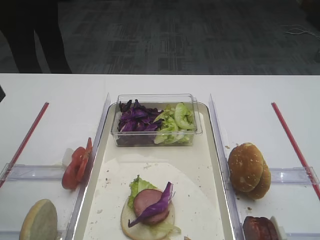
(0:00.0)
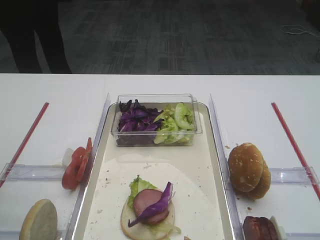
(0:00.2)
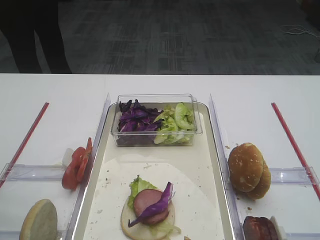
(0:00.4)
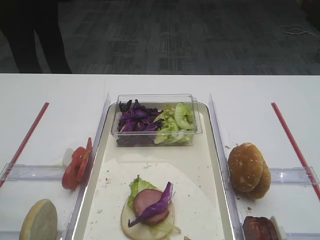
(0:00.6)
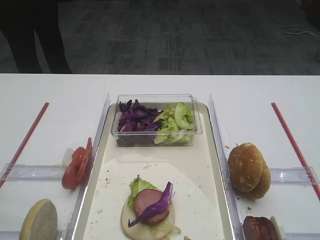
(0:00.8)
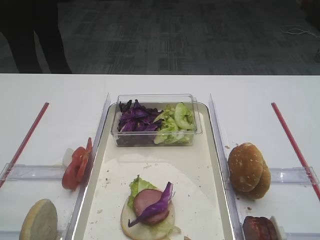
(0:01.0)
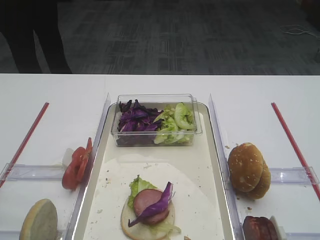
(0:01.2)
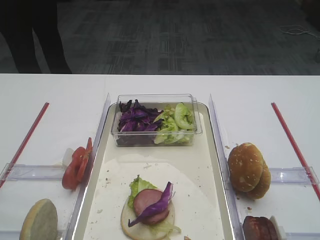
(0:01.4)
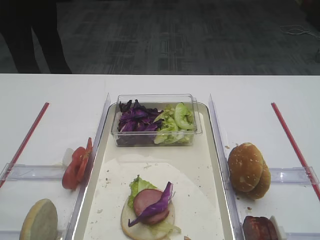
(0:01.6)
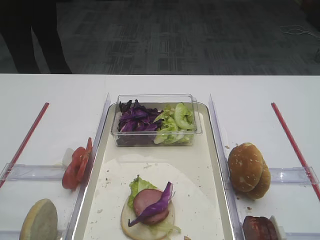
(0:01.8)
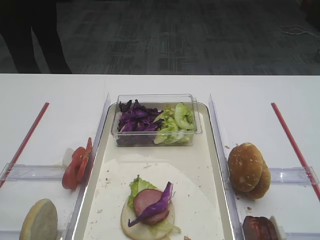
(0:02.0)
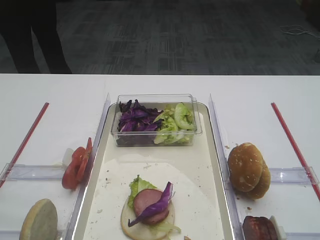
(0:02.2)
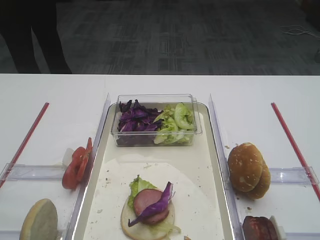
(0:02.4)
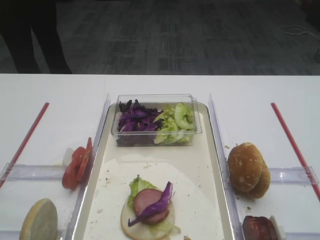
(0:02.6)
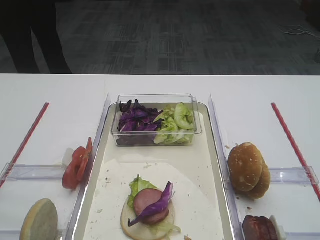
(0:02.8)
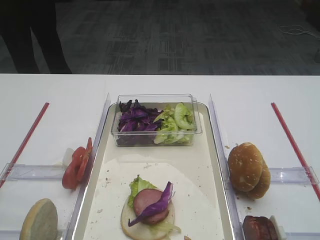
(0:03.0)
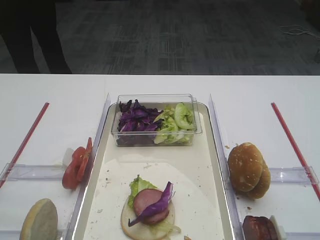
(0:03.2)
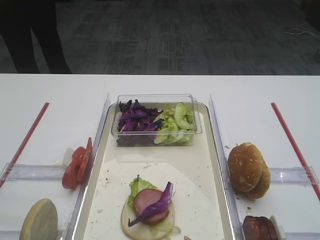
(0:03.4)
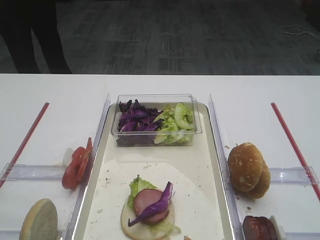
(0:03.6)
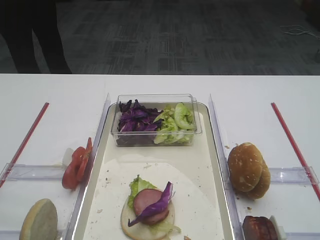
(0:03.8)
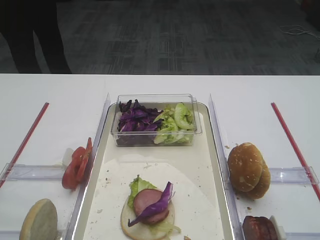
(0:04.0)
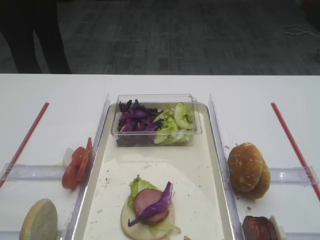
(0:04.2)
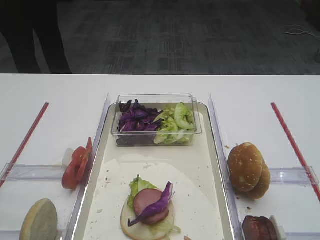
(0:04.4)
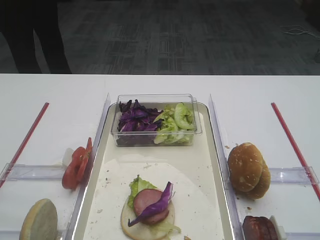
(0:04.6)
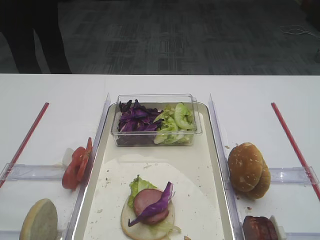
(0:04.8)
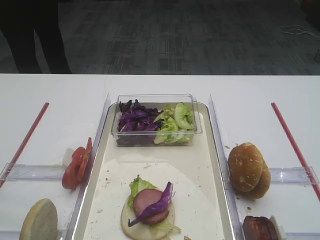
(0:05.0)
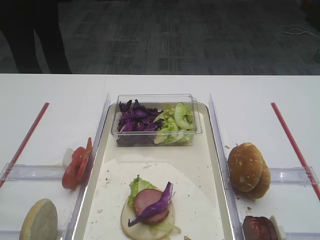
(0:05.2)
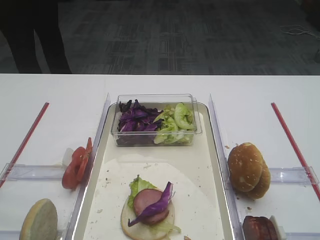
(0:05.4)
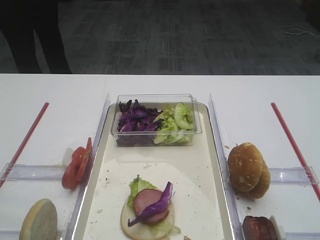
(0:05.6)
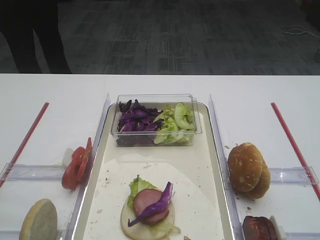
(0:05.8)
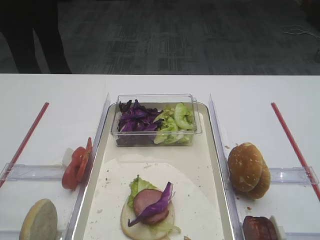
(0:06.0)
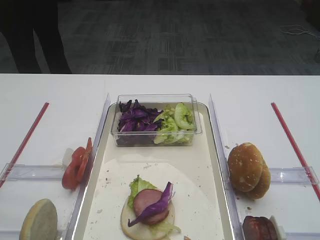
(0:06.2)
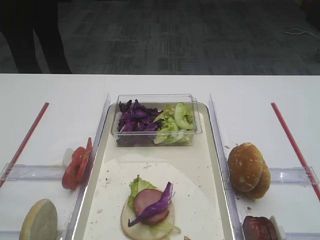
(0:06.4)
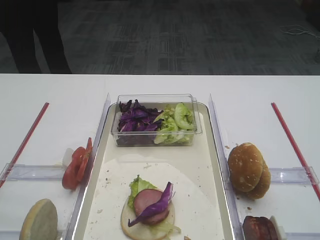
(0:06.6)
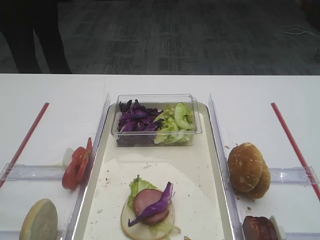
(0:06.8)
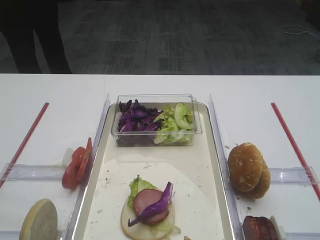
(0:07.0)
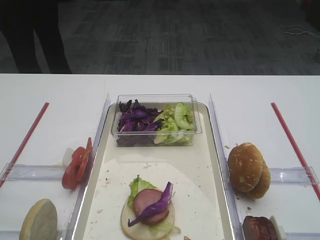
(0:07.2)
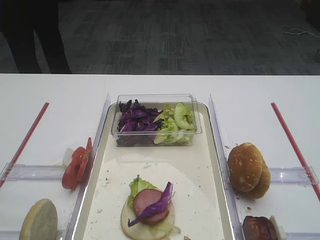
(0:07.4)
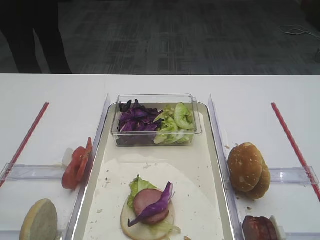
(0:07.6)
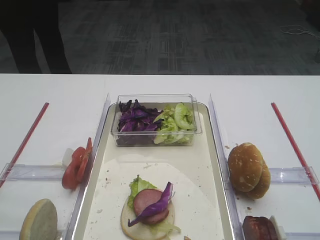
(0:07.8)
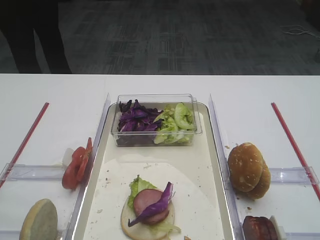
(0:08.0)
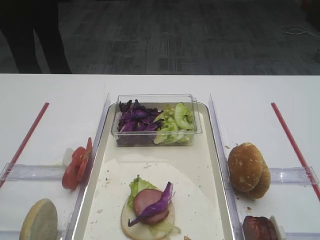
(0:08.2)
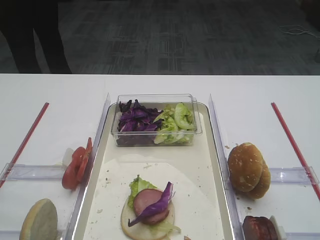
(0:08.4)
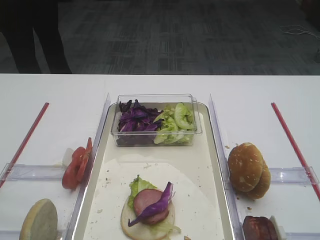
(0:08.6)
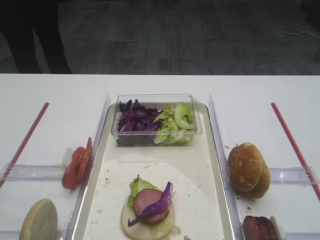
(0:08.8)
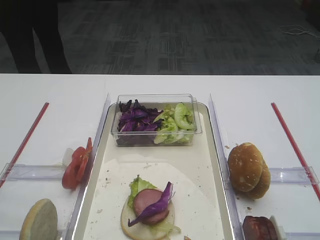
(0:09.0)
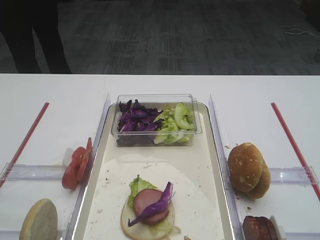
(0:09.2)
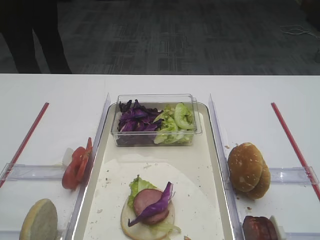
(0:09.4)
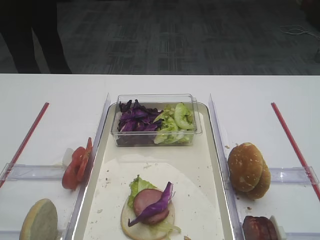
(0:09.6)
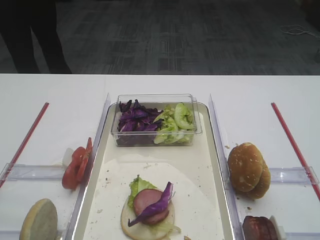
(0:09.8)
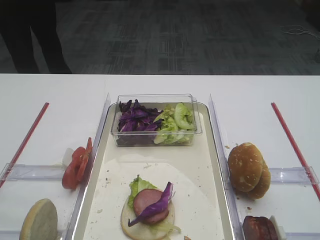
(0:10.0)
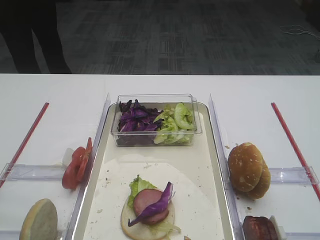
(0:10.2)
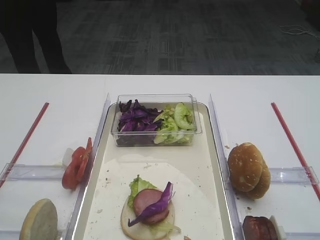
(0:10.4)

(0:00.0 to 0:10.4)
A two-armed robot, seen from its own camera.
0:03.0 - 0:10.4: Both grippers stay put.

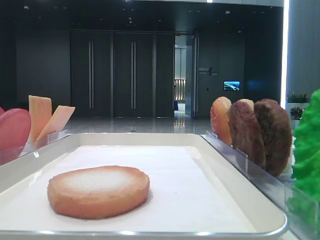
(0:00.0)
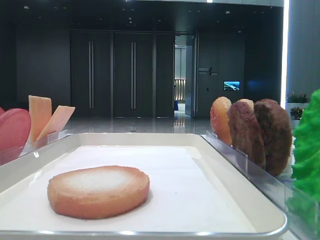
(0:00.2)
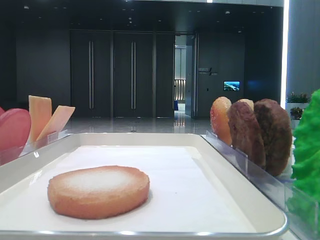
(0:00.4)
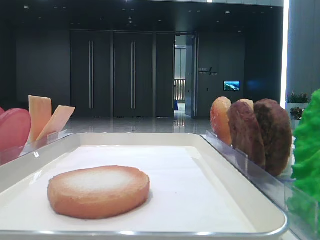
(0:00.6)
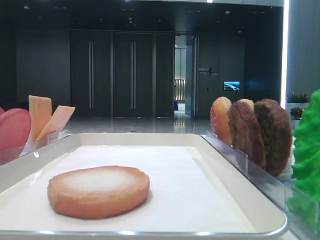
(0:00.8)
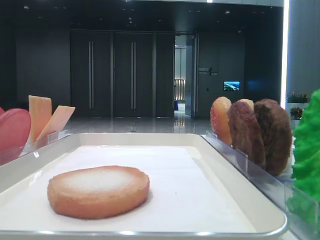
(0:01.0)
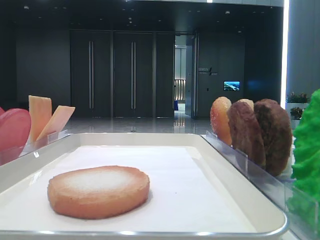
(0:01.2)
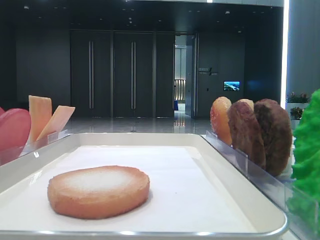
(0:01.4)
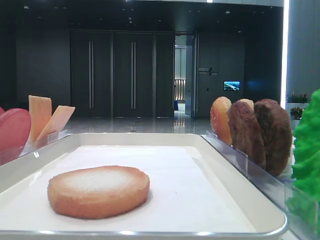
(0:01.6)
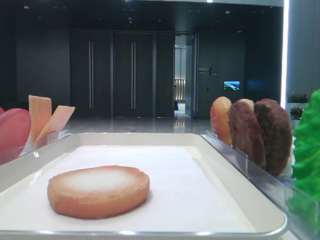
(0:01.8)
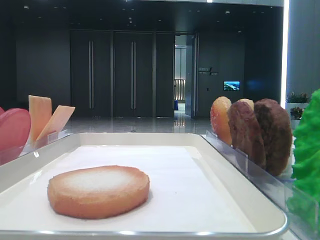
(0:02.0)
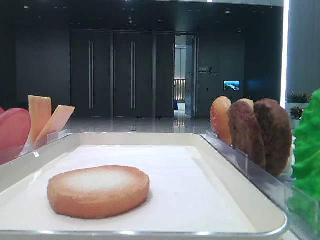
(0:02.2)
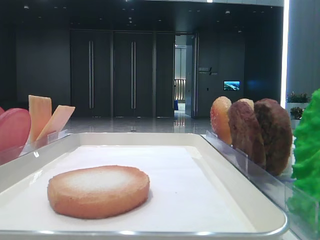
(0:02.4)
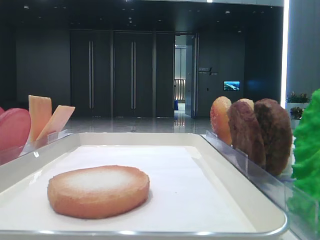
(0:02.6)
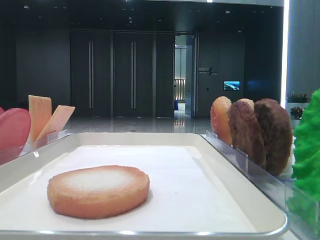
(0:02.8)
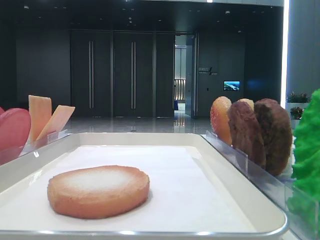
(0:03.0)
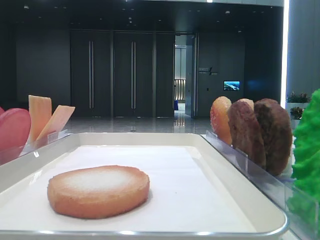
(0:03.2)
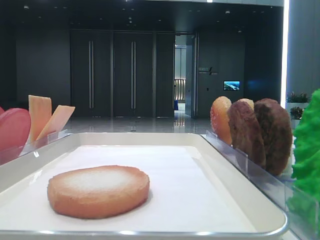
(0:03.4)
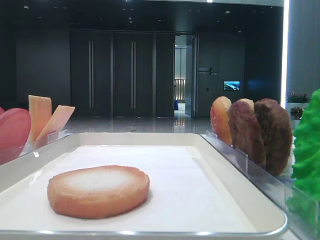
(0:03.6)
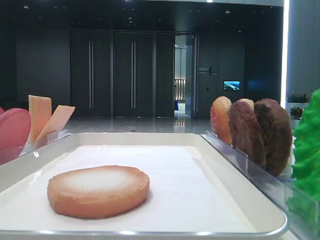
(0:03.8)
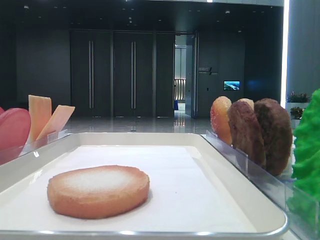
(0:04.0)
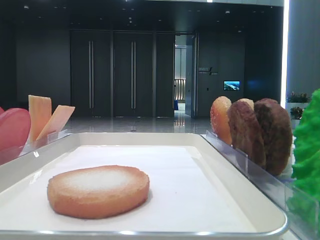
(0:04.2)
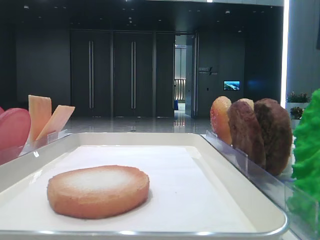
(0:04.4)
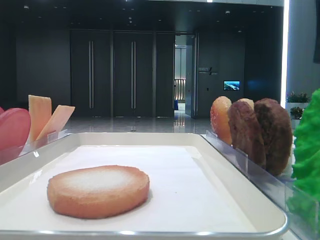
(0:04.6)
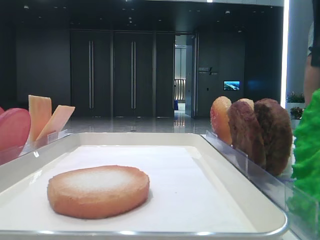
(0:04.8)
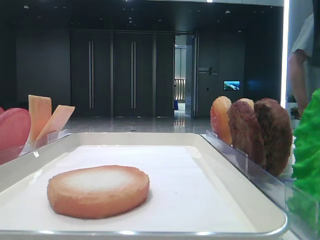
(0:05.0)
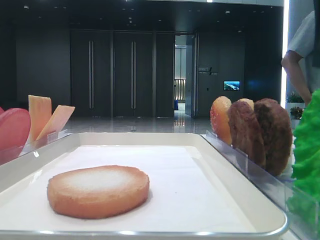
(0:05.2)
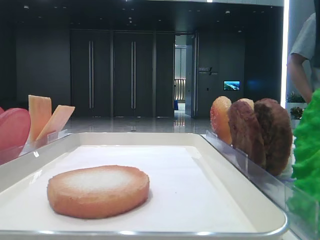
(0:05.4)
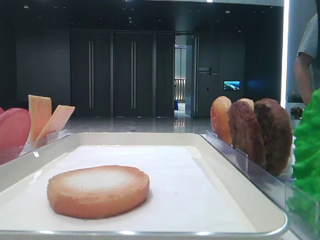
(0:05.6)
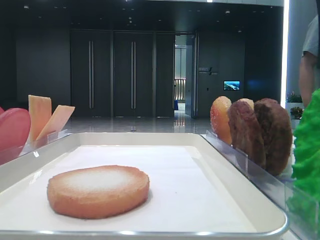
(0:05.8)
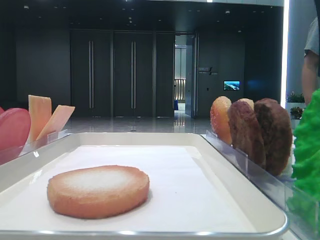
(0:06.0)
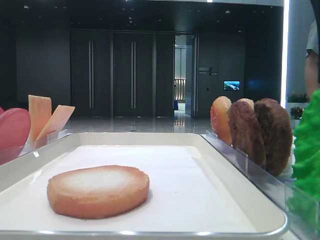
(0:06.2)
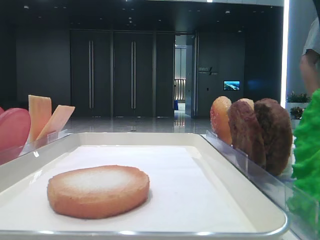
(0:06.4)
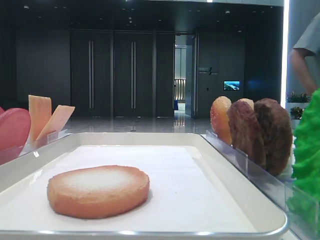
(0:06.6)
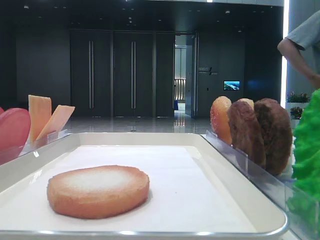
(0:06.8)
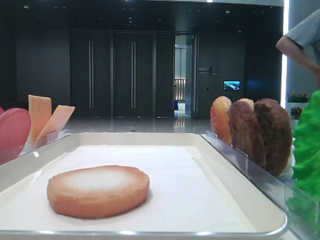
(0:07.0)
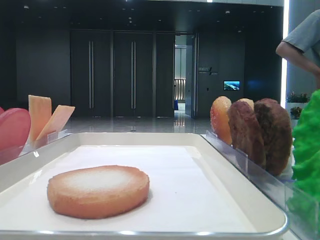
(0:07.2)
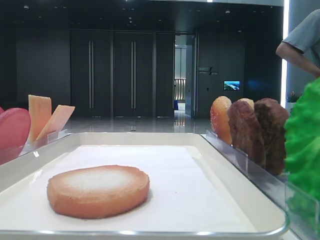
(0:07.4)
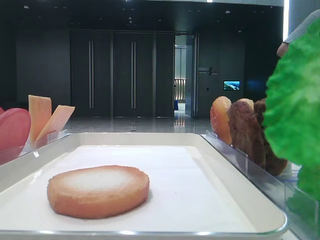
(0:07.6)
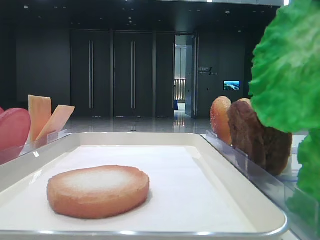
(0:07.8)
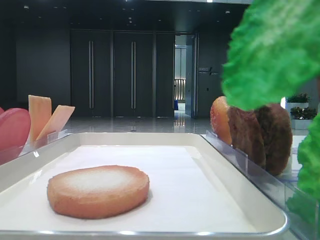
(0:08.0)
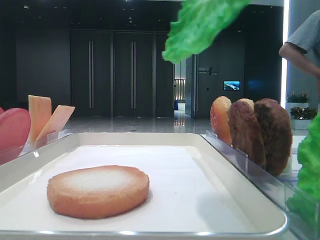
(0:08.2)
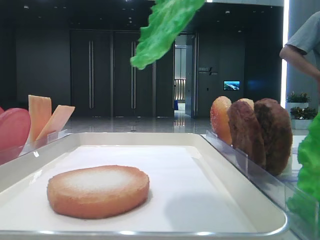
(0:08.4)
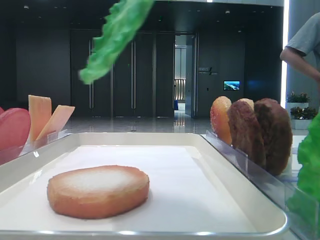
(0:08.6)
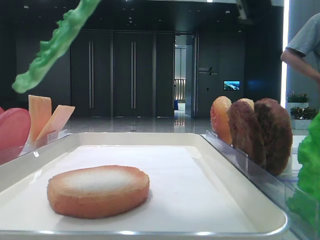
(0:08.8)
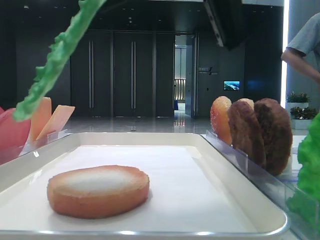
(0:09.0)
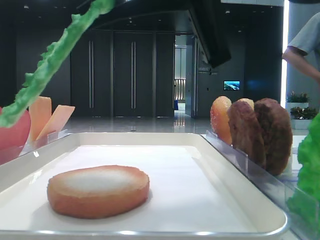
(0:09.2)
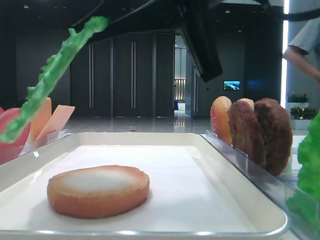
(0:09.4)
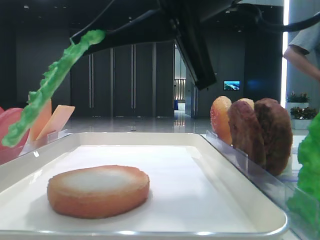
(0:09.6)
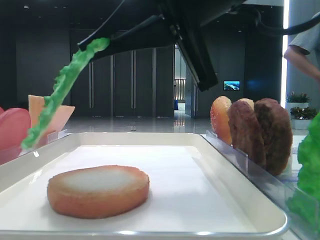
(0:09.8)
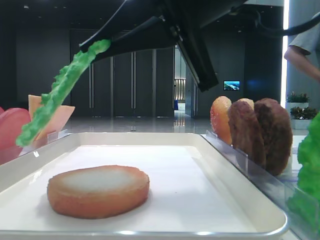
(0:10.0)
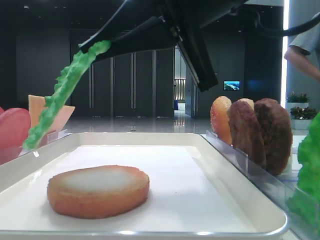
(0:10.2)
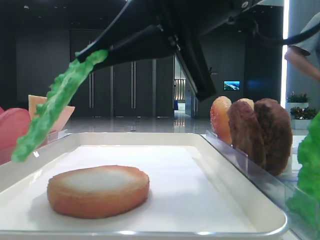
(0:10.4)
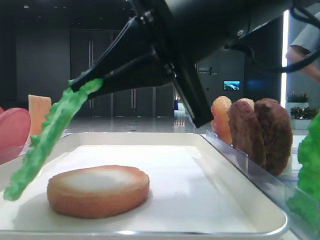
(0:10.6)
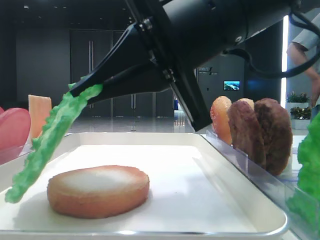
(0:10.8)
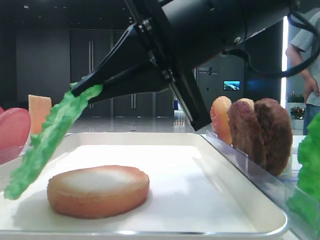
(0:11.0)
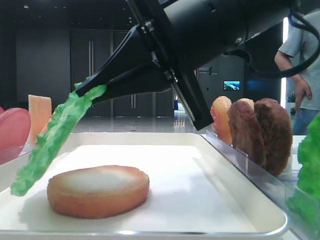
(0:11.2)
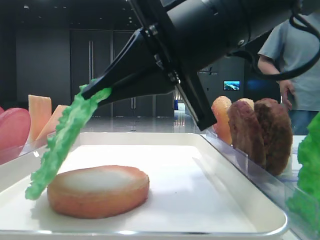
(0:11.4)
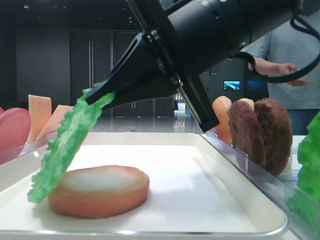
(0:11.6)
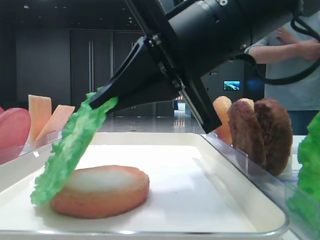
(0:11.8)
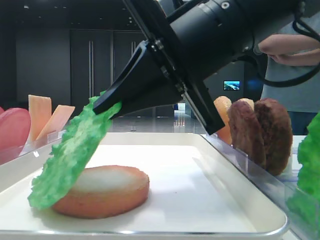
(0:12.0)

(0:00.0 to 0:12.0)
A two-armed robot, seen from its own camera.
Step, 0:00.0 - 0:07.0: Grab the lettuce leaf with the right hand.
0:06.0 - 0:07.6: The right gripper closes its fingers.
0:07.6 - 0:09.0: The right gripper shifts about 10 cm to the left.
0:09.0 - 0:10.4: The right gripper changes place by some 5 cm.
